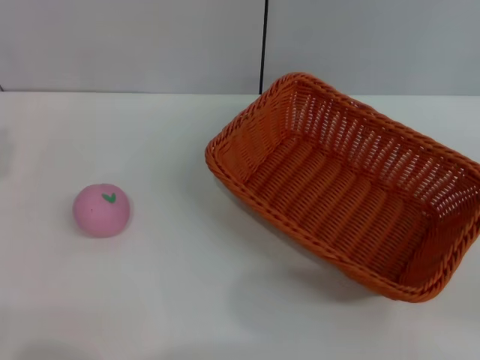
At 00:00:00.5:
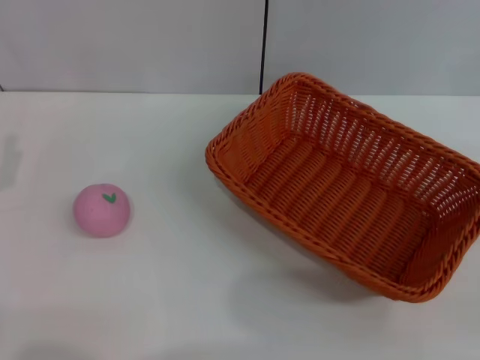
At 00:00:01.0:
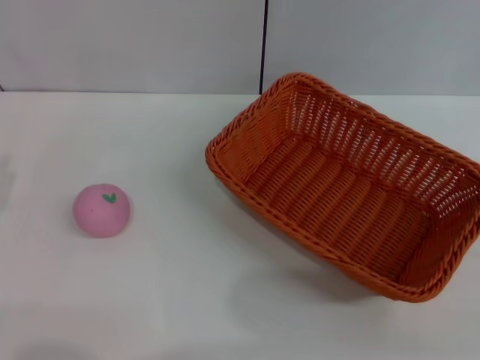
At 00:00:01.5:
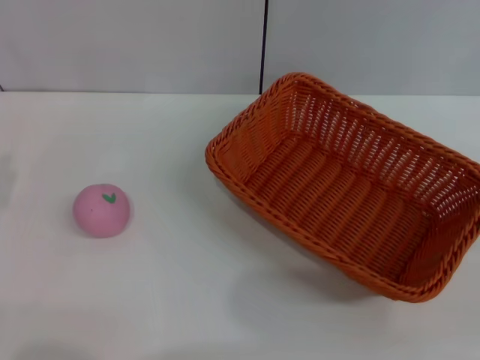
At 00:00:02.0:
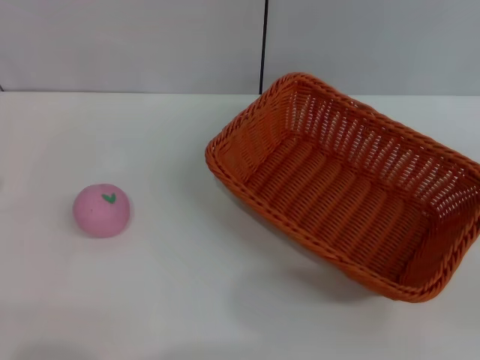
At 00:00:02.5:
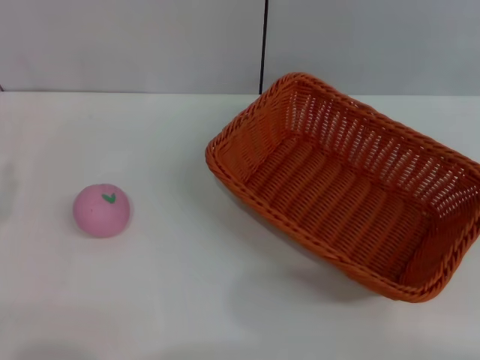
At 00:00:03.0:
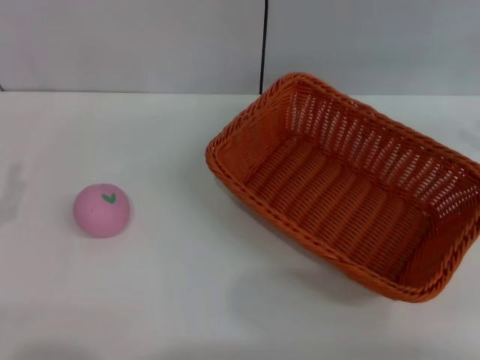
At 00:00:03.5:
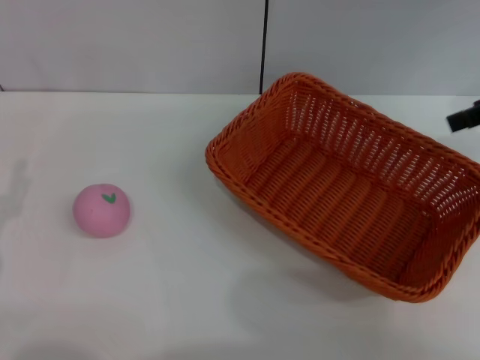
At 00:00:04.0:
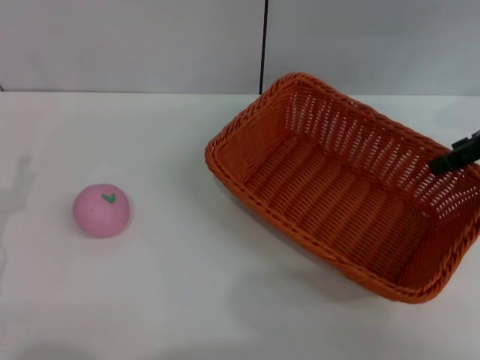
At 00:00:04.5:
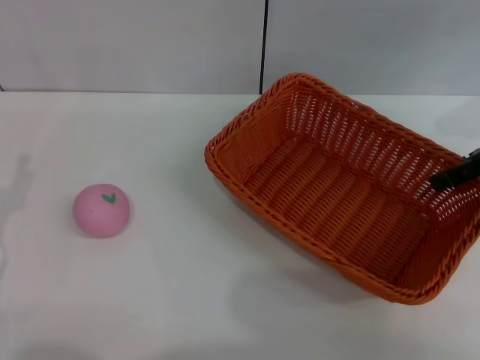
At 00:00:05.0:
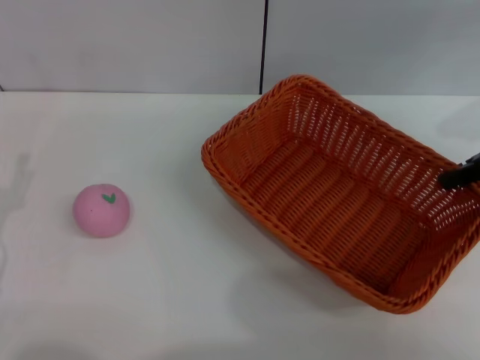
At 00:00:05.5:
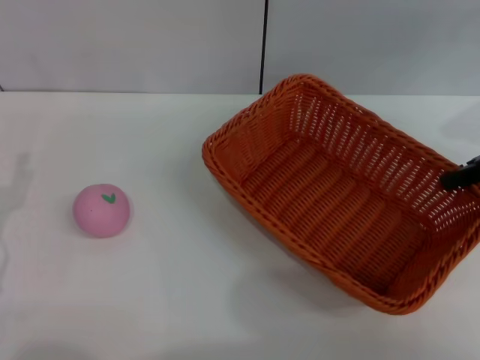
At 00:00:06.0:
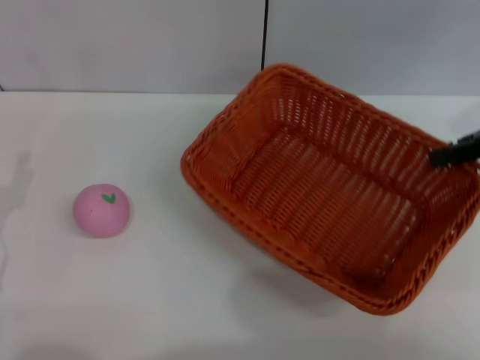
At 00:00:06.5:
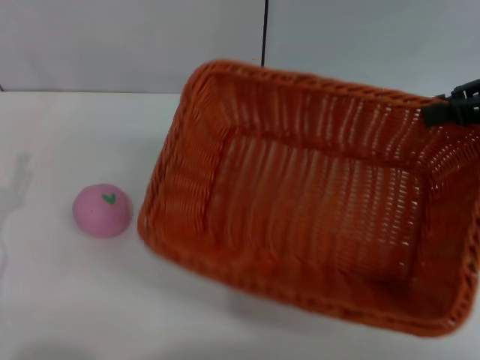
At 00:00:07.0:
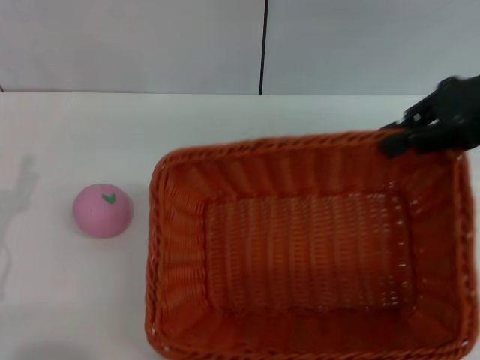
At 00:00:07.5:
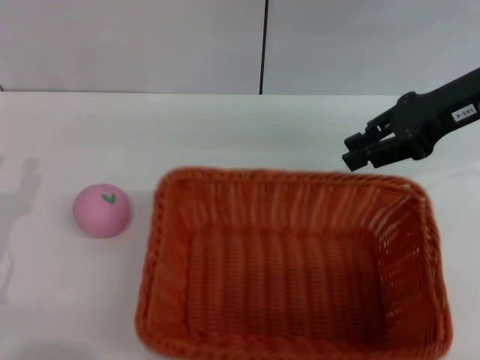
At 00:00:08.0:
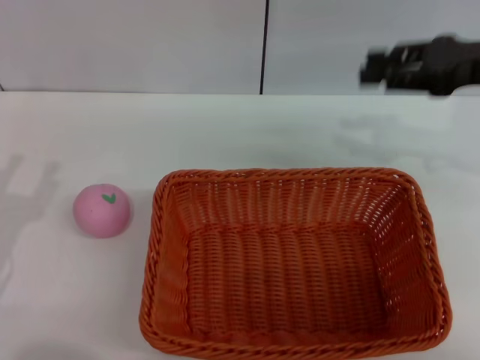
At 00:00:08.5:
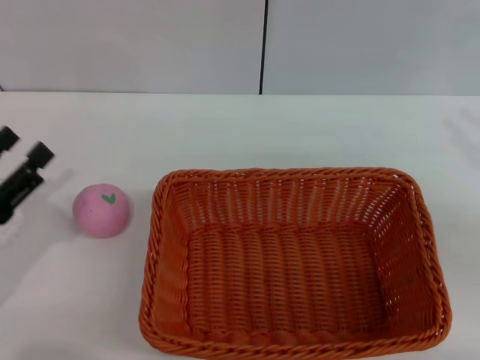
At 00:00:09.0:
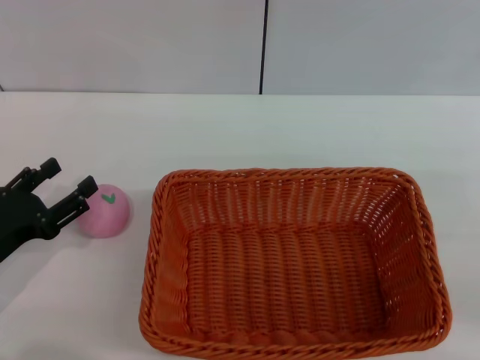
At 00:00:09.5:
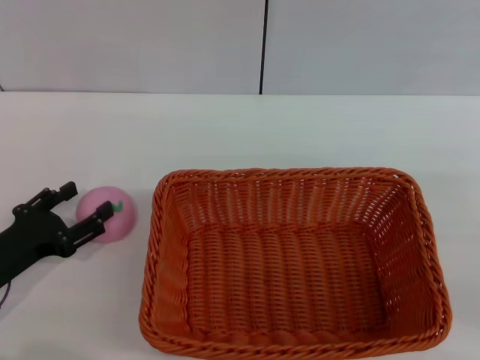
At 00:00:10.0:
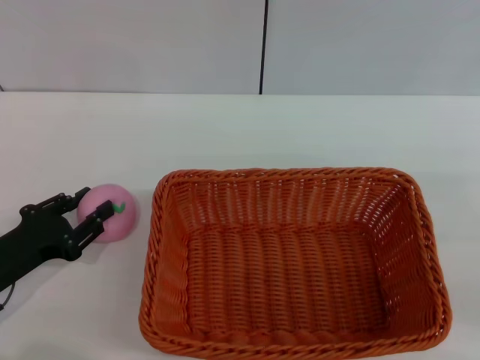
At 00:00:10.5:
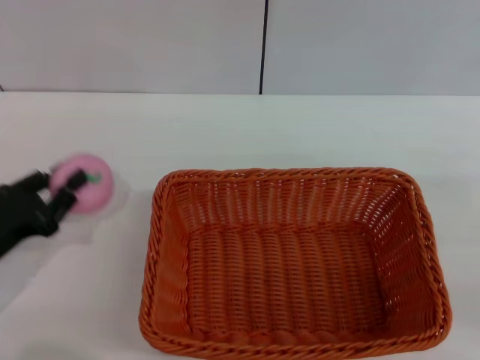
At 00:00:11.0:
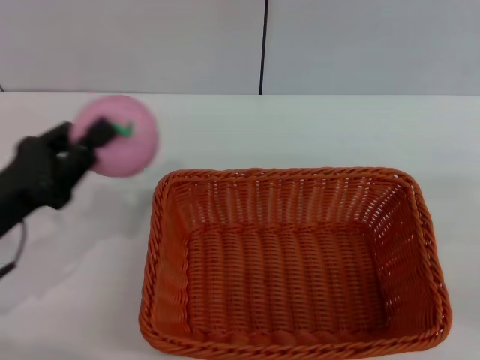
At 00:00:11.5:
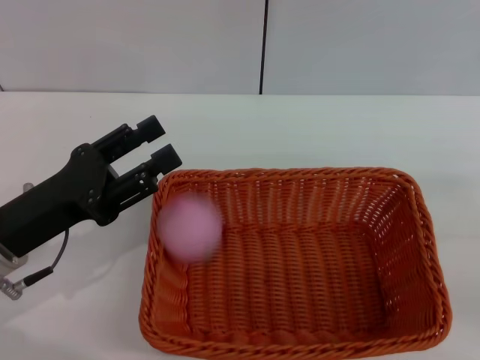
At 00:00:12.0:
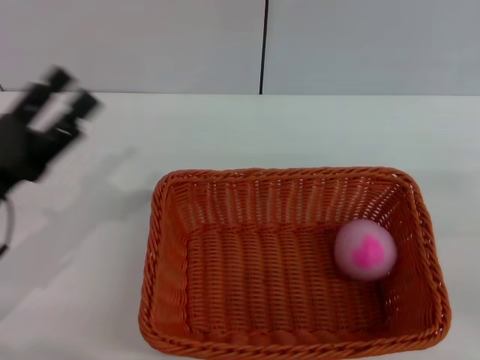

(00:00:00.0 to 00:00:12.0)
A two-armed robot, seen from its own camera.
Step, 00:00:00.0 - 00:00:06.0: Pick up the light basket with the right gripper.
Step, 00:00:06.5 - 00:00:07.5: Place the light basket in the center of view with the right gripper.
Step, 00:00:08.0 - 00:00:10.5: Pick up the peach with the left gripper.
Step, 00:00:11.0 - 00:00:11.5: Place the peach into the basket with the left gripper.
00:00:02.0 - 00:00:04.0: The right gripper goes roughly 20 cm forward, upward and to the left, and opens up.
00:00:04.0 - 00:00:06.0: The right gripper closes its fingers.
00:00:06.0 - 00:00:08.0: The right gripper opens.
00:00:08.0 - 00:00:10.0: The left gripper ends up some 5 cm from where it was. The right gripper heads backward, to the right and downward, covering about 20 cm.
00:00:10.0 - 00:00:12.0: The left gripper travels upward by approximately 5 cm, and closes, then reopens.

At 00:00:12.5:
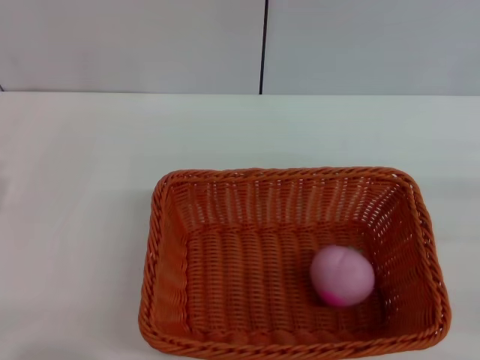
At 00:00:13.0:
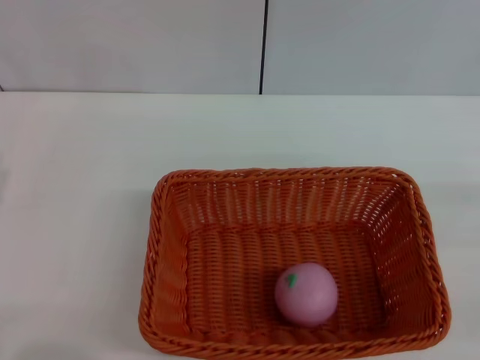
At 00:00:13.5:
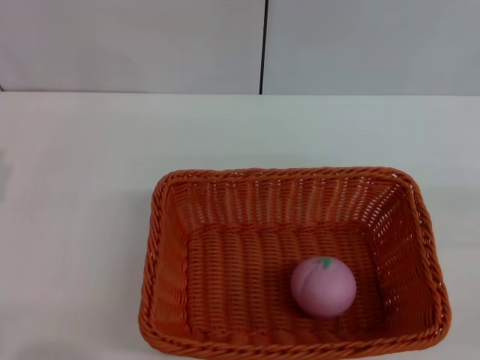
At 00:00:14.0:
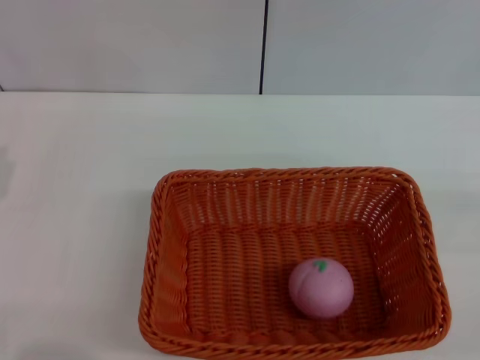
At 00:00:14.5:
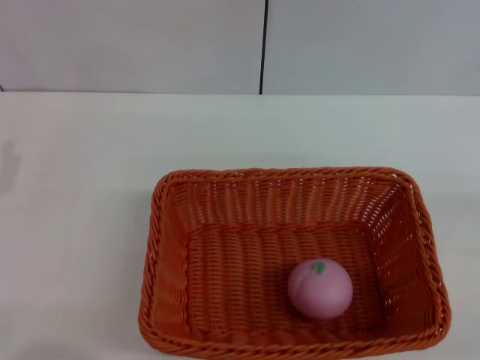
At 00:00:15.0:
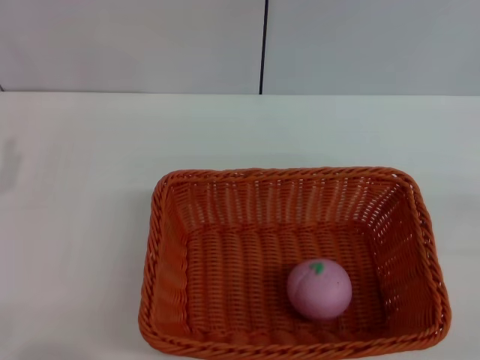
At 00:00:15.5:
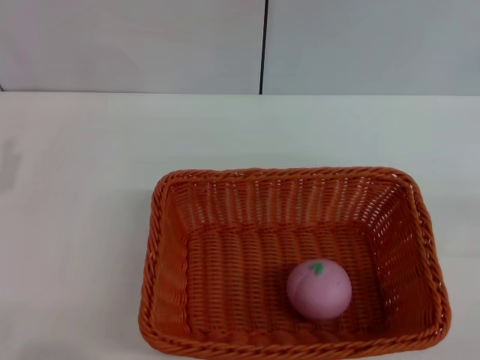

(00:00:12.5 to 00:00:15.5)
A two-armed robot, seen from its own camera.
00:00:12.5 - 00:00:14.0: The grippers stay close to where they were, moving slightly.
00:00:14.0 - 00:00:15.5: Both grippers stay put.
